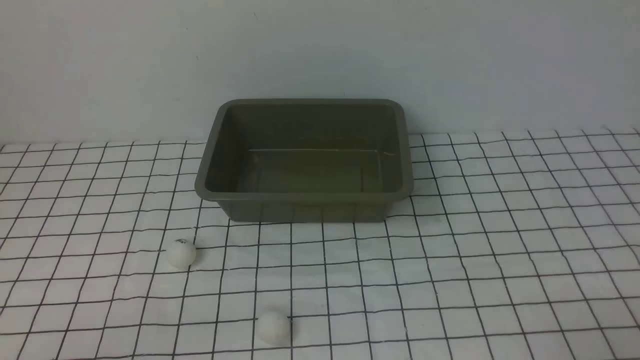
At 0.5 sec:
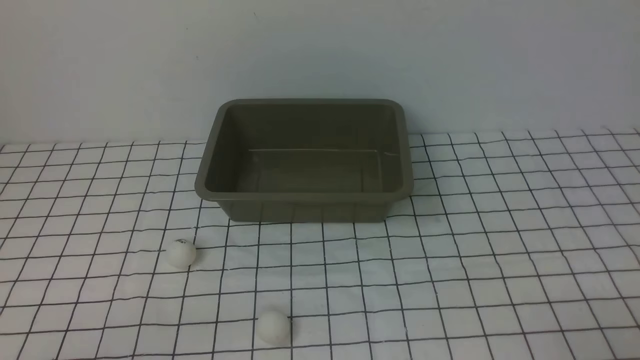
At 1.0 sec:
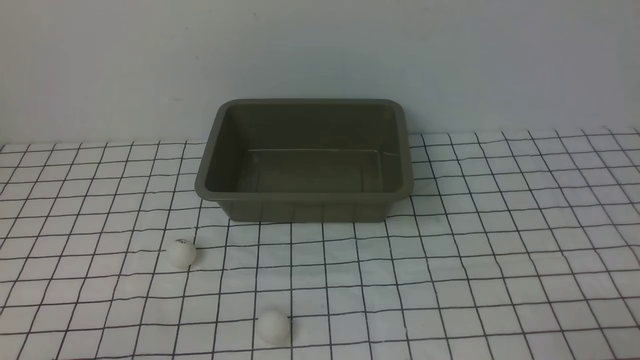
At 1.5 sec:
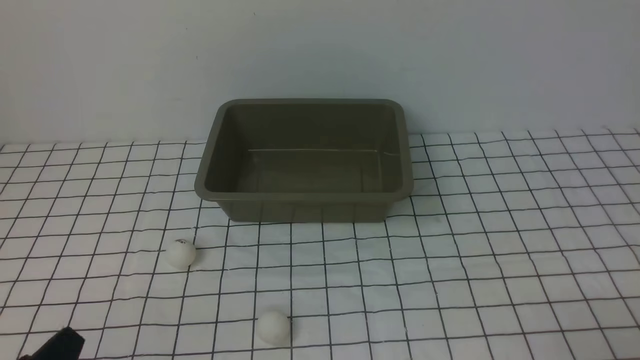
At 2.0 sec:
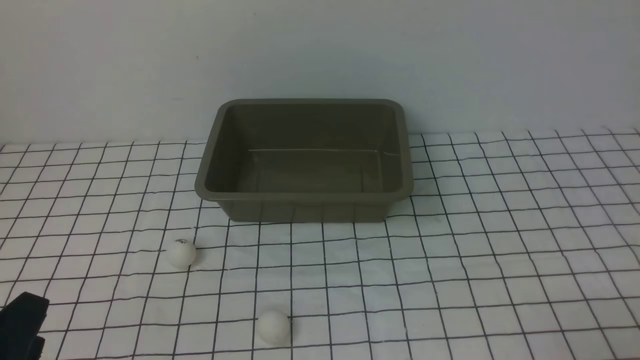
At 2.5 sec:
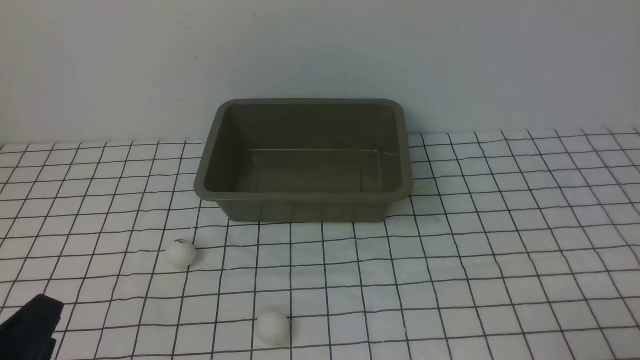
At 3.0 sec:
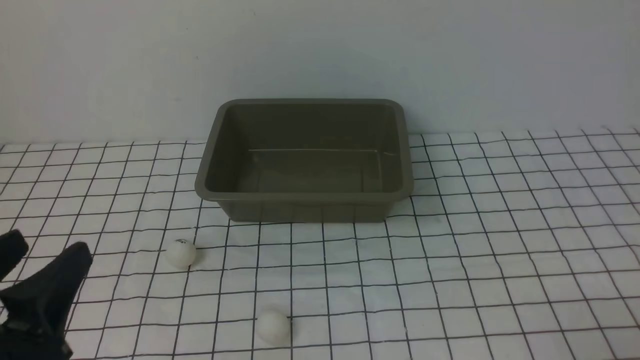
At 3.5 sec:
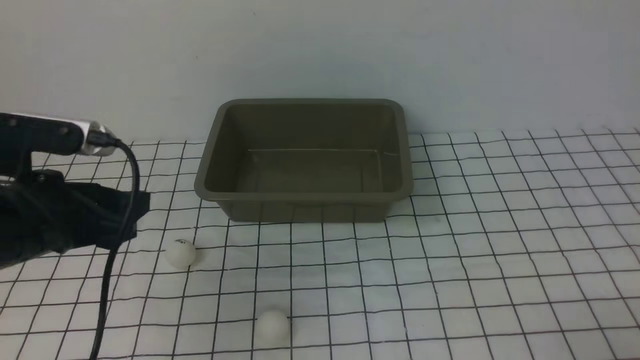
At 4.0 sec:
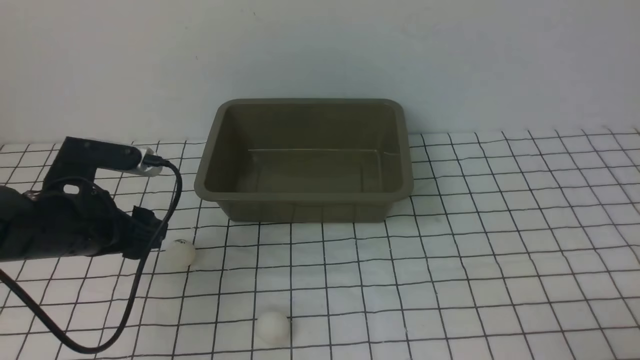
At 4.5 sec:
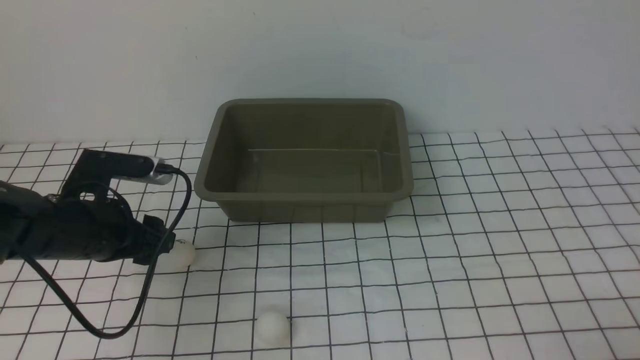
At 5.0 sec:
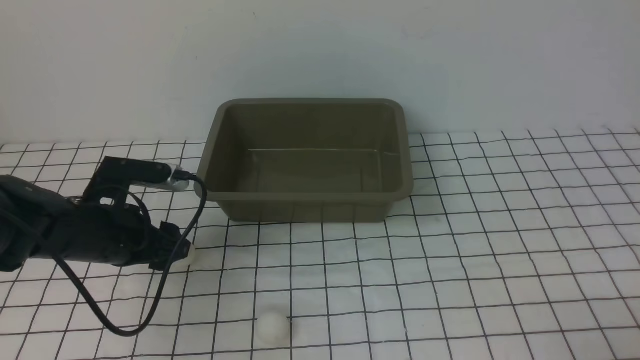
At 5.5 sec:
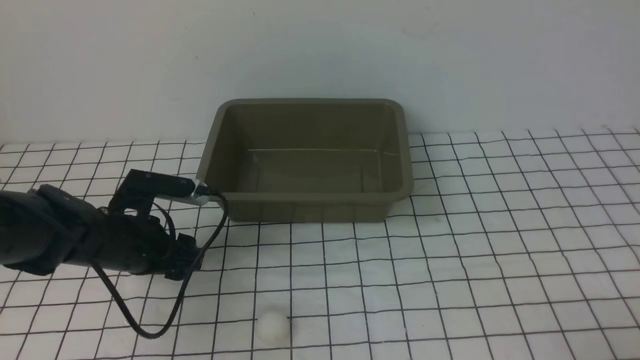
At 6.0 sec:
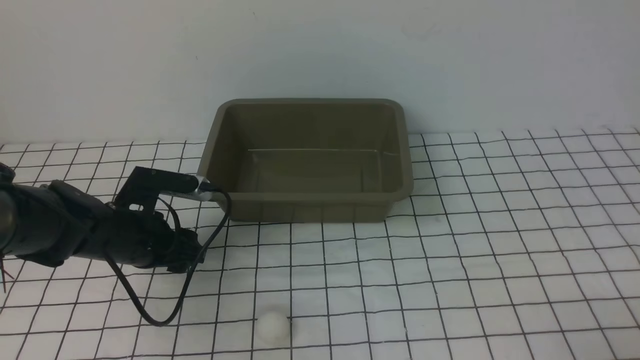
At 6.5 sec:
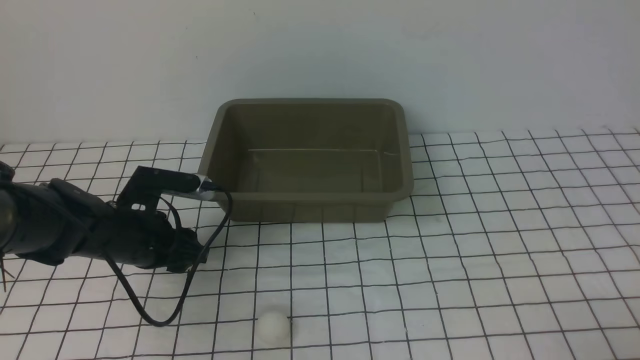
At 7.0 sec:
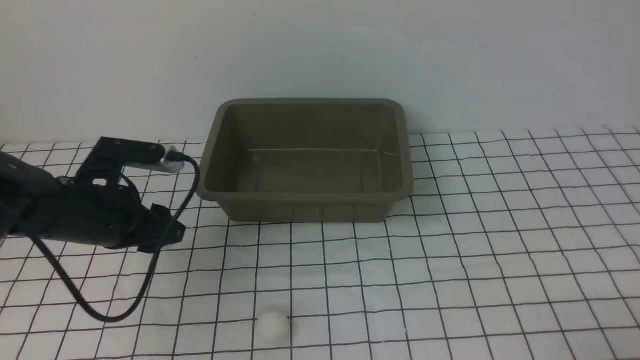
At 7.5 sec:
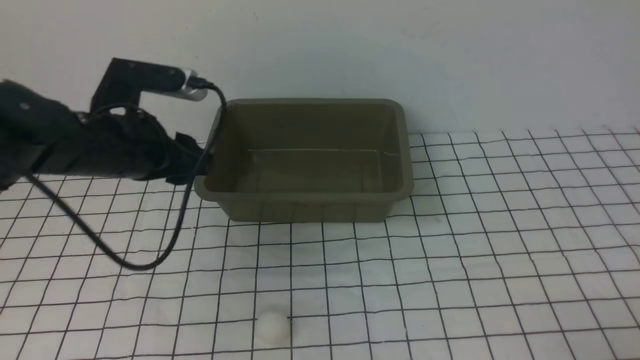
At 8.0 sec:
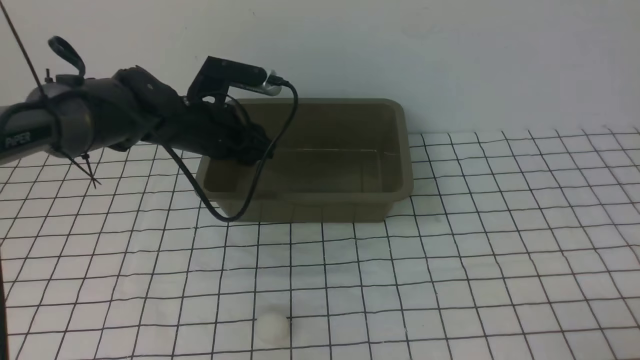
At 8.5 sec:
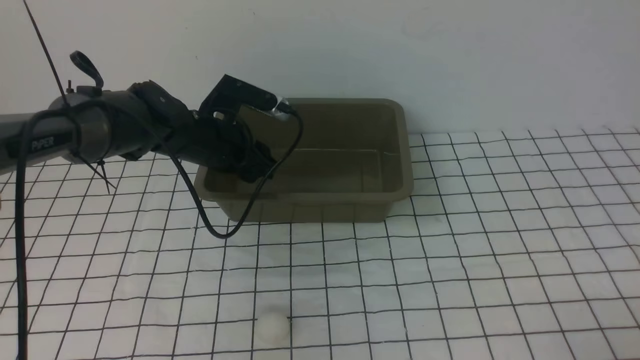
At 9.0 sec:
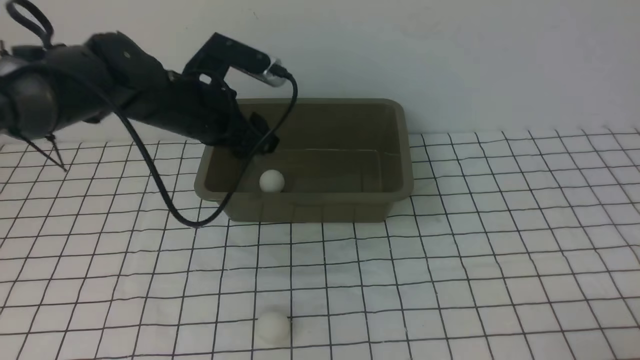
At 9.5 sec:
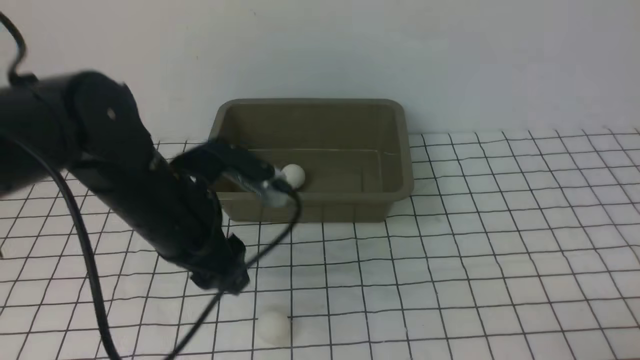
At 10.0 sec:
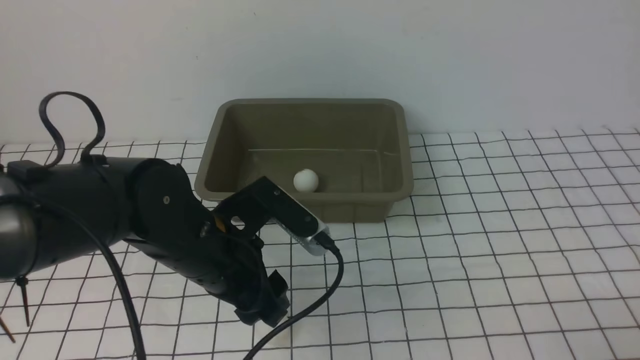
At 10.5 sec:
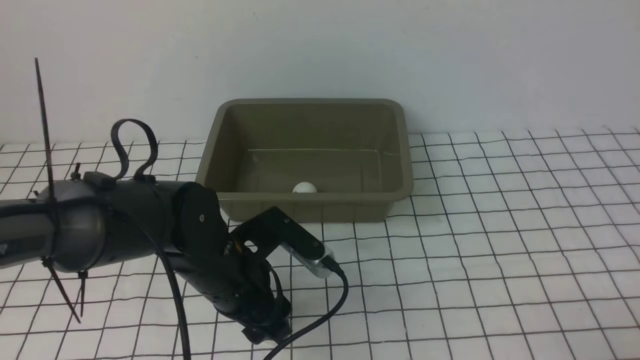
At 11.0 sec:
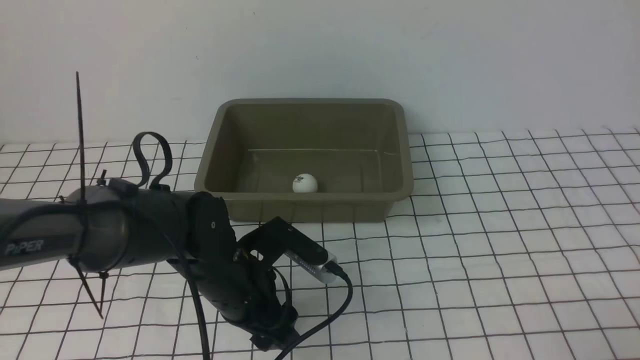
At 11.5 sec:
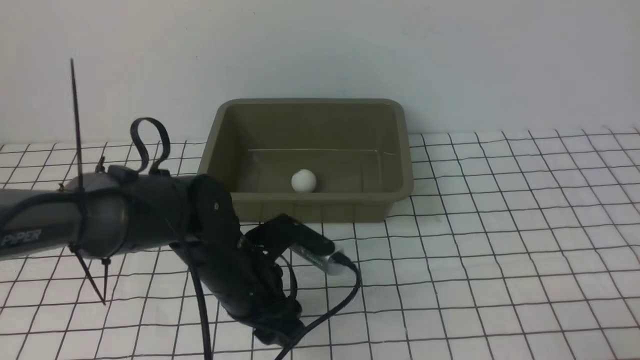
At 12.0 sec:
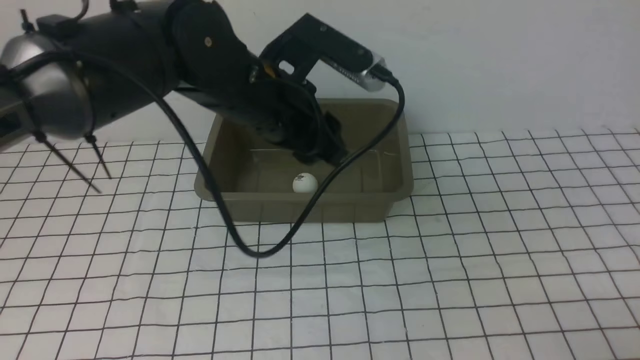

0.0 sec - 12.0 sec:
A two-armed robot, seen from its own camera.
Step, 0.0 sec - 7.0 sec: use the left arm to clamp the table tennis ball closest to it.
Step, 7.5 sec - 8.5 sec: use the left arm to put the table tennis ball into the box.
Step, 9.0 sec - 11.5 sec: use the left arm to clamp the table tennis ball closest to it.
2.0 sec - 4.0 sec: The left gripper heads forward, covering approximately 20 cm.
4.0 sec - 6.0 sec: The left gripper heads downward, covering some 5 cm.
6.0 sec - 8.0 sec: The left gripper moves forward, upward and to the right, some 15 cm.
8.0 sec - 10.0 sec: The left gripper heads backward, covering some 15 cm.
10.0 sec - 12.0 sec: The left gripper moves forward and upward, some 15 cm.

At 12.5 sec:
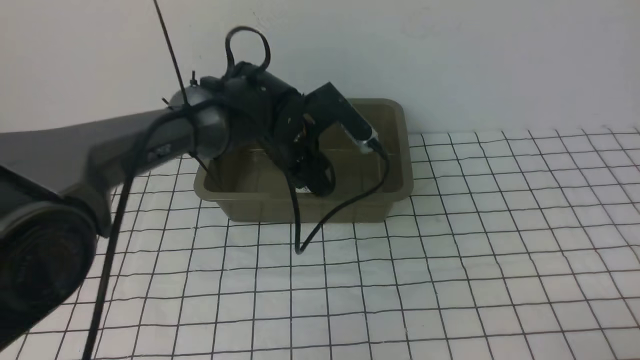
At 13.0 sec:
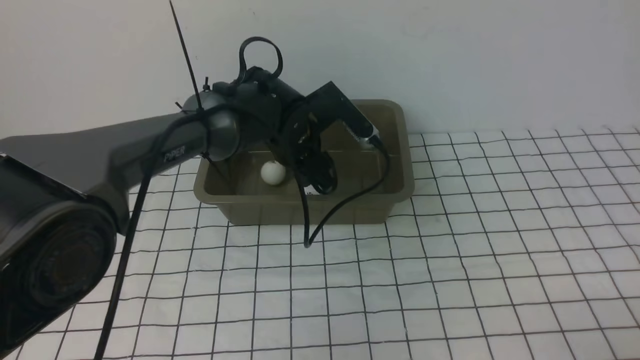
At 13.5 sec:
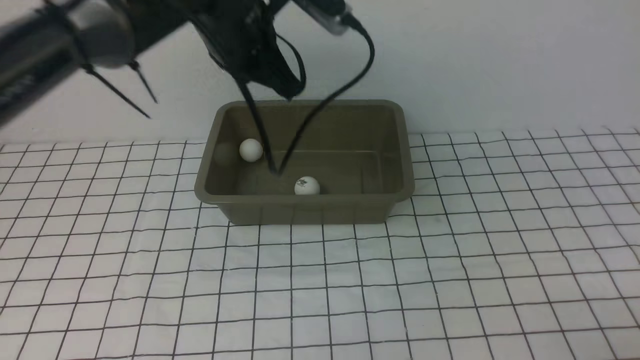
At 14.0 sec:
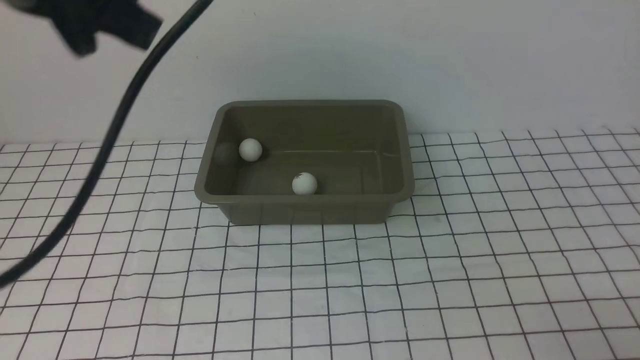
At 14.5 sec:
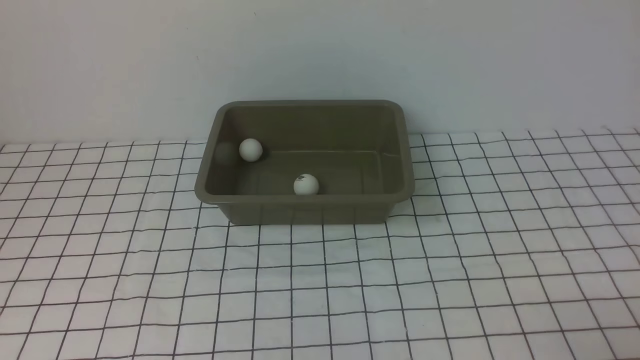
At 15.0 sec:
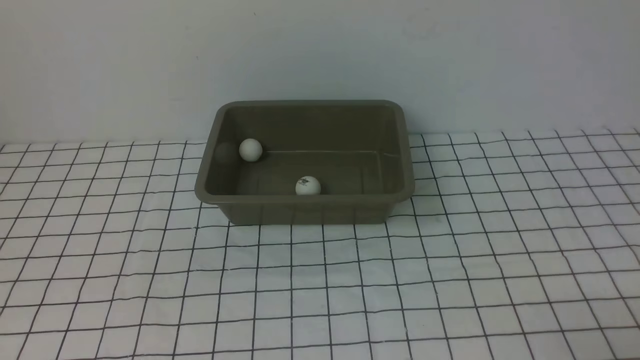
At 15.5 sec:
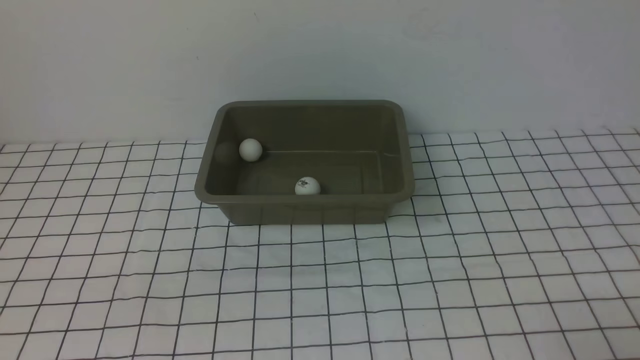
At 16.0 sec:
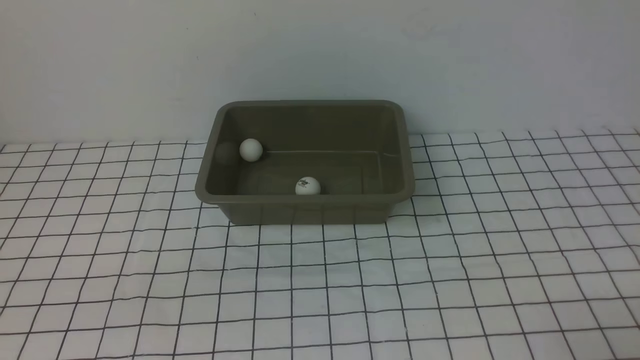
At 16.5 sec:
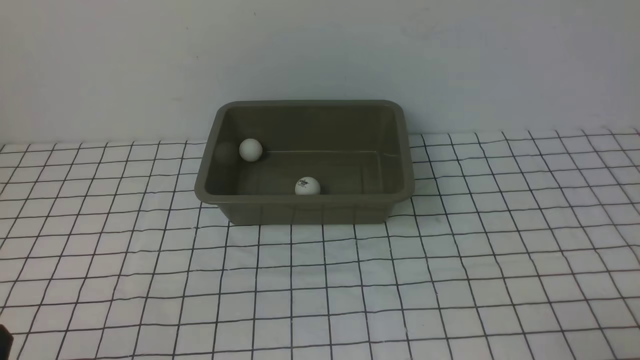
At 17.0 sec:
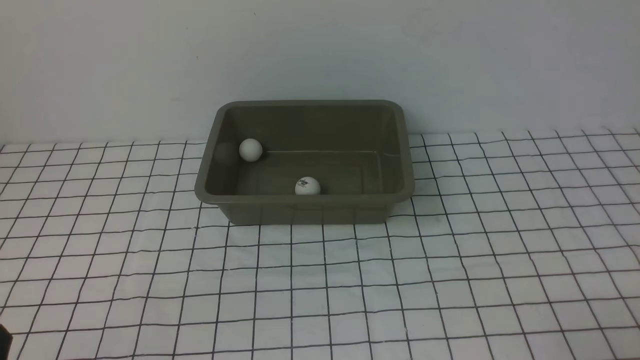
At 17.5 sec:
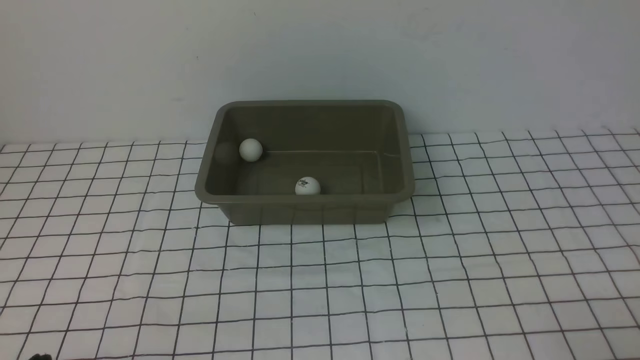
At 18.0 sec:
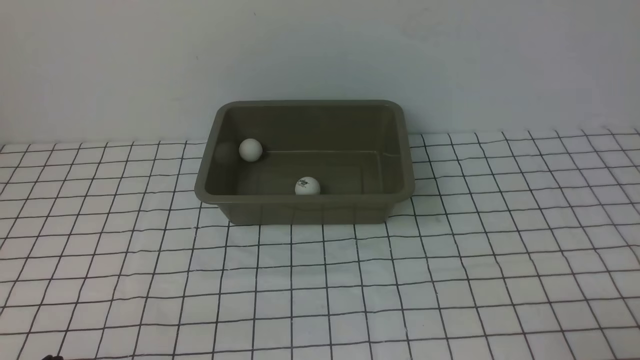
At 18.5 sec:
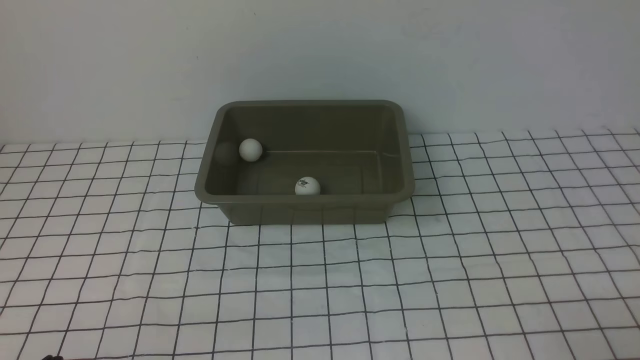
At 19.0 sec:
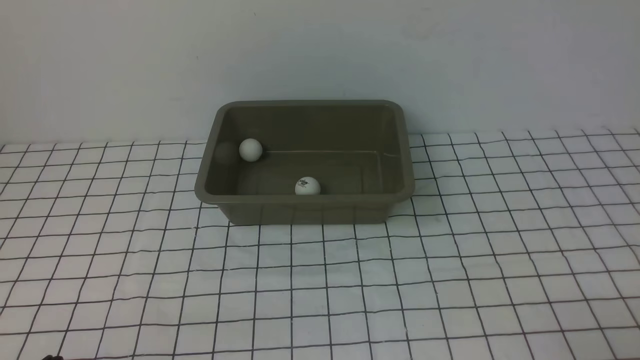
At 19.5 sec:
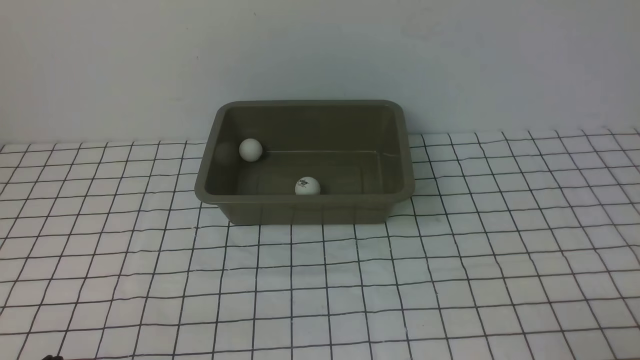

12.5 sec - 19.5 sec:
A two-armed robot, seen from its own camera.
12.5 sec - 14.5 sec: The left gripper is displaced backward, to the left and upward by approximately 40 cm, and closes up.
17.5 sec - 19.5 sec: Both grippers stay put.

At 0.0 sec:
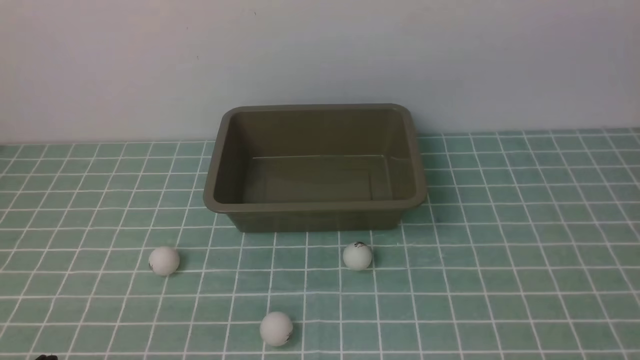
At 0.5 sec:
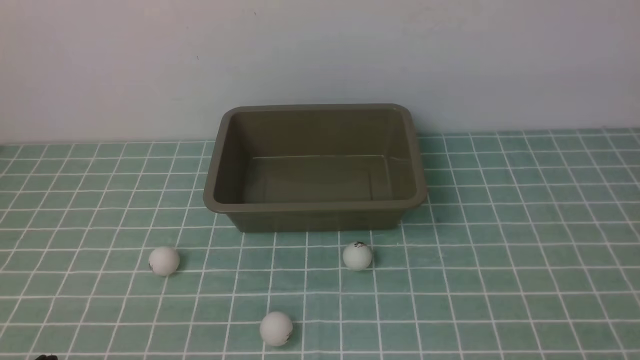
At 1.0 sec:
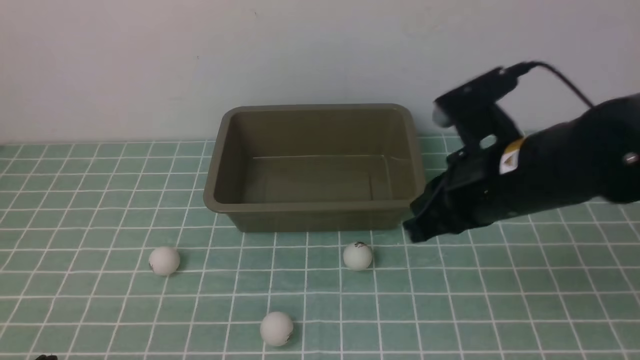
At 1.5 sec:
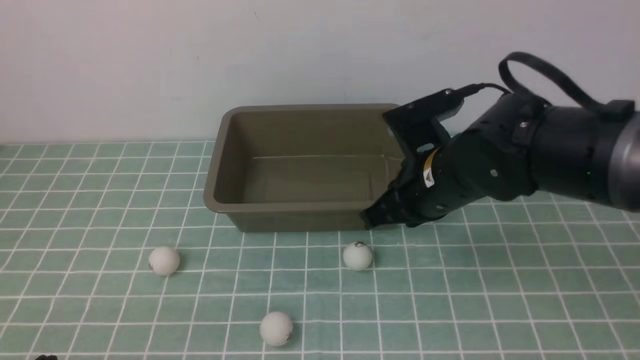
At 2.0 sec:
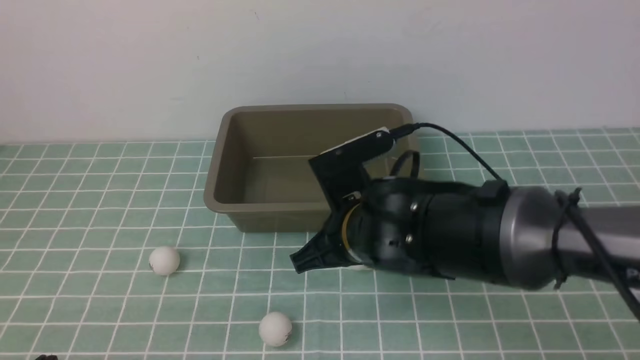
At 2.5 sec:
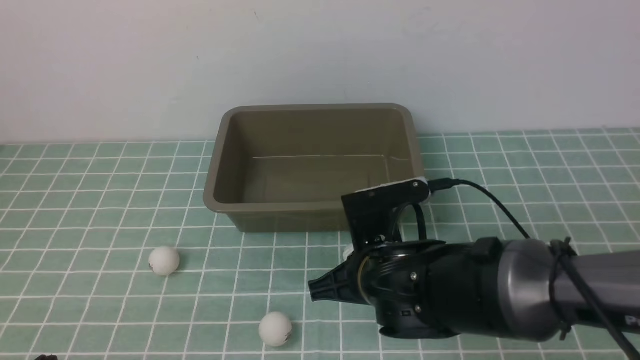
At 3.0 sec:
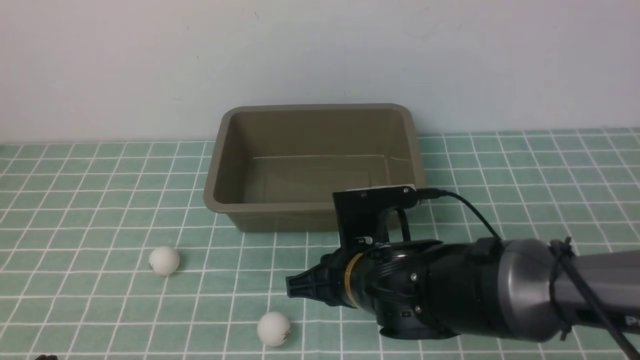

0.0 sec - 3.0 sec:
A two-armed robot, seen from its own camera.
0.0 sec - 1.5 sec: The right gripper goes roughly 30 cm downward, to the left and forward.
1.5 sec - 3.0 sec: The right gripper heads to the left, backward and downward, covering about 10 cm.
